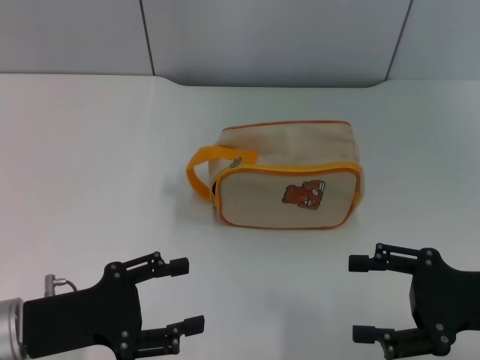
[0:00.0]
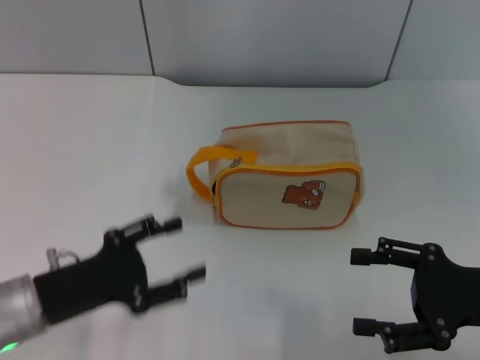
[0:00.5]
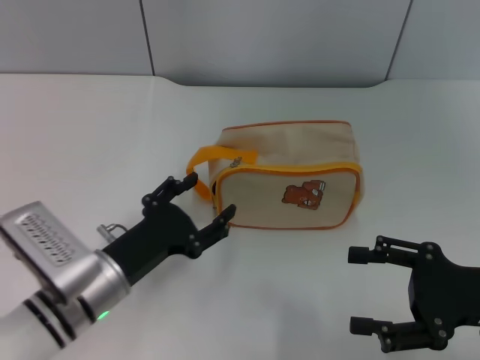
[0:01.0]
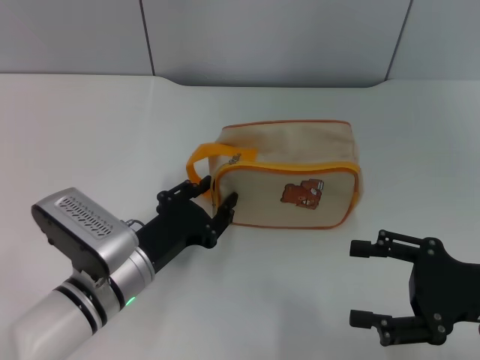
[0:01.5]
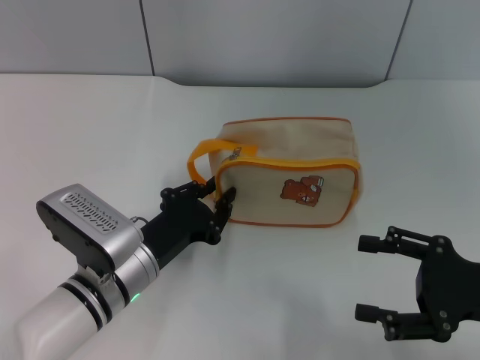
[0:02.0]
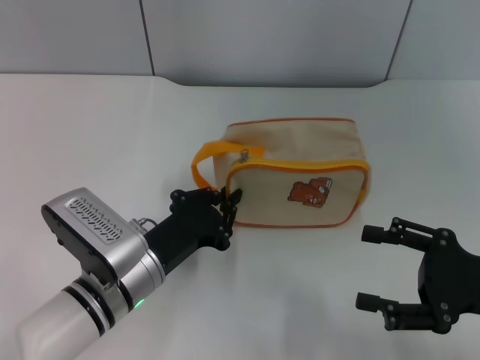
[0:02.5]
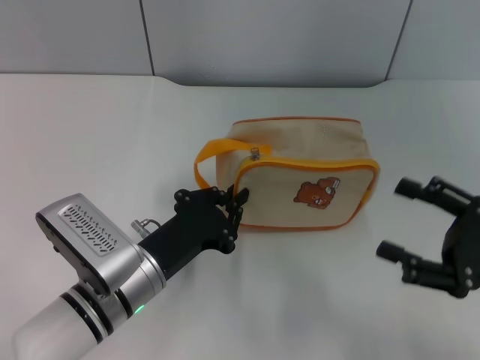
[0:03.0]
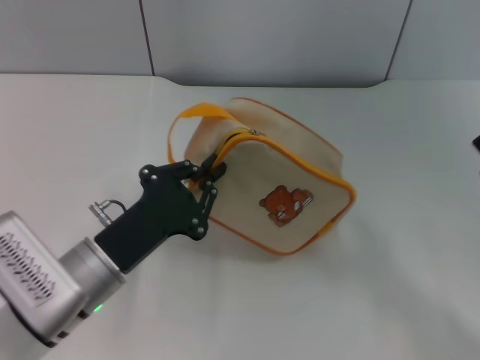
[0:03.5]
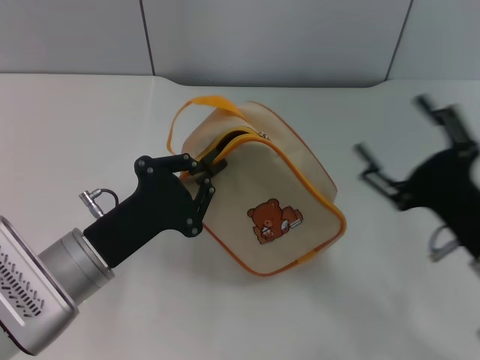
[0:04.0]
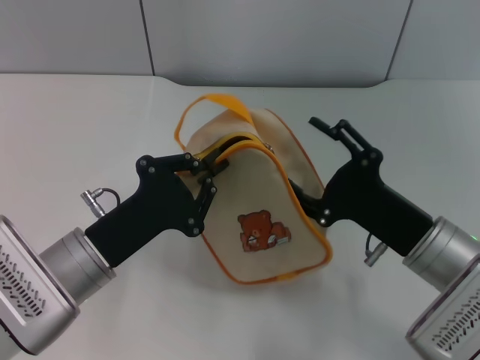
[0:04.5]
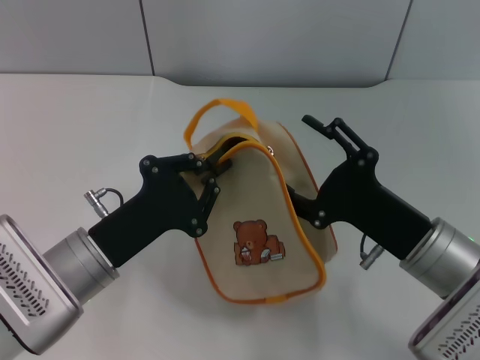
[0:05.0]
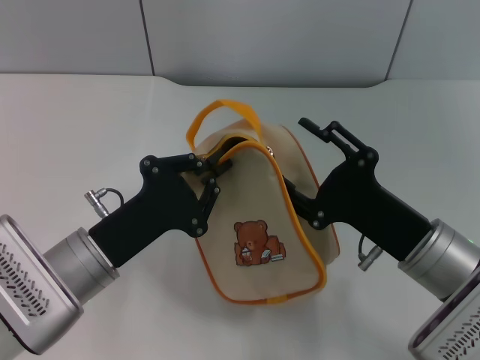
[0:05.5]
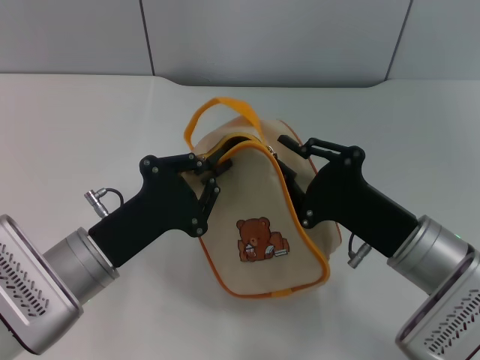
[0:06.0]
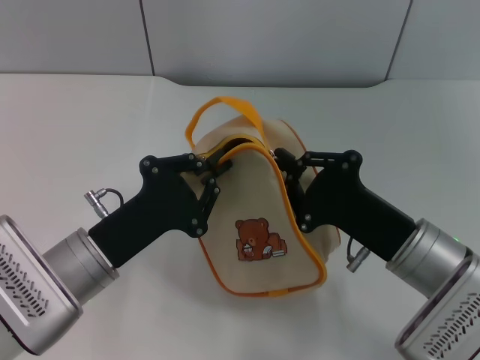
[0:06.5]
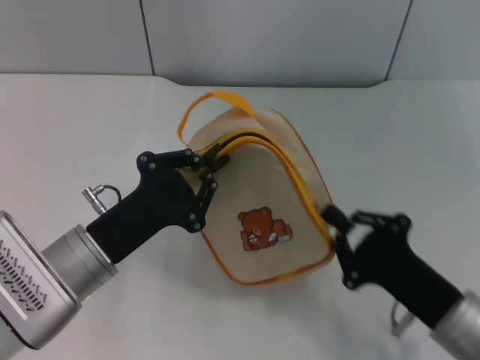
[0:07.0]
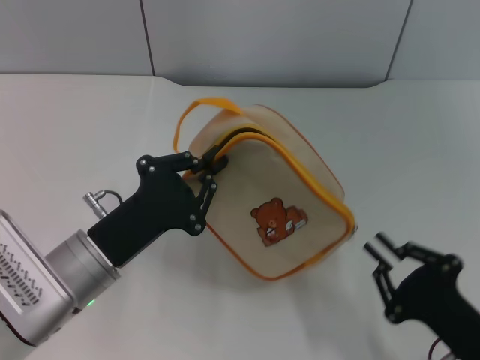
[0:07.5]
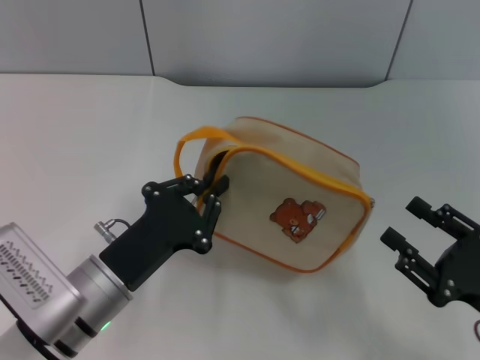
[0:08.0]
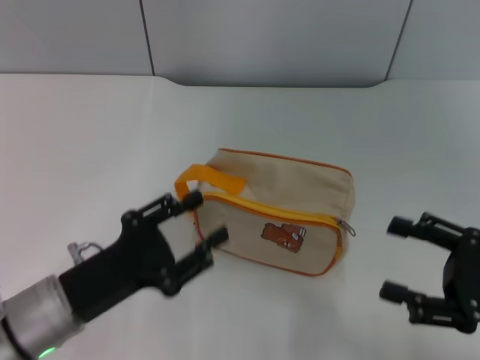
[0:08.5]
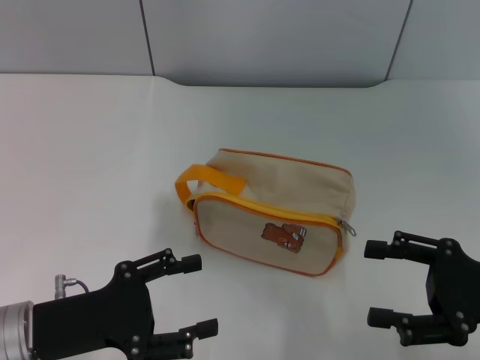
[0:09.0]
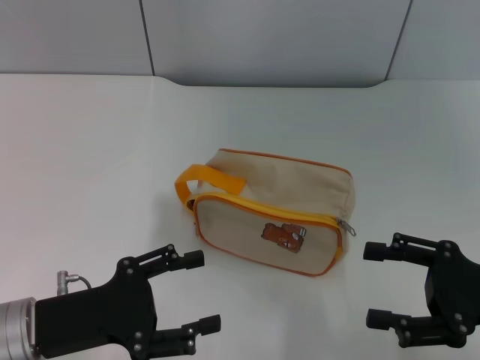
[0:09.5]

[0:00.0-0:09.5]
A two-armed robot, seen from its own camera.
Step, 0:00.0 to 0:03.5: Pick up the bag with left gripper.
Step, 0:04.0 to 0:07.5: Unzip the zipper of bag with right gripper.
Step, 0:08.0 to 0:08.5: Place the bag on the table with left gripper.
0:00.0 to 0:02.0: The left gripper is displaced to the right and forward by about 10 cm, and closes its fingers.
0:02.0 to 0:04.0: The left gripper moves approximately 5 cm, and closes its fingers. Meanwhile the right gripper is displaced to the left by roughly 5 cm.
0:04.0 to 0:05.5: The right gripper heads to the left, covering about 5 cm.
0:05.5 to 0:07.5: The right gripper heads backward and to the right, covering approximately 10 cm, and closes its fingers.
0:07.5 to 0:09.5: The left gripper goes approximately 5 cm to the left, and opens its fingers. The right gripper moves upward, forward and to the right, approximately 10 cm, and opens its fingers.

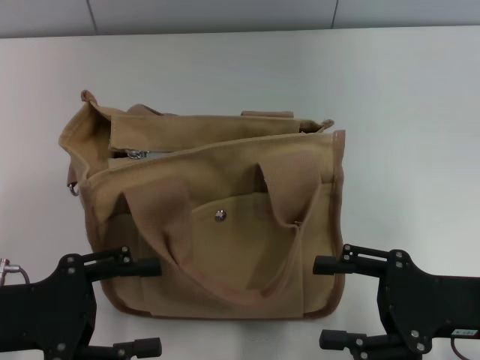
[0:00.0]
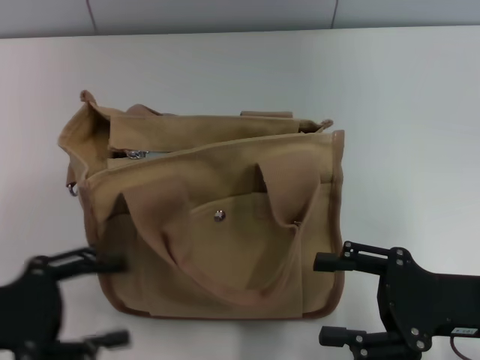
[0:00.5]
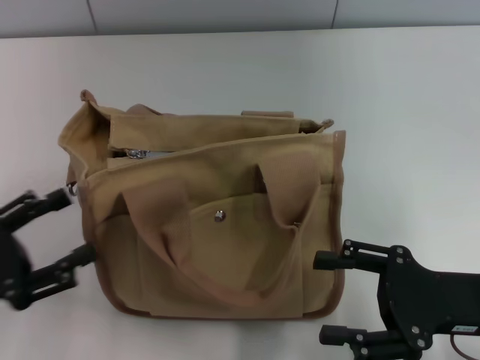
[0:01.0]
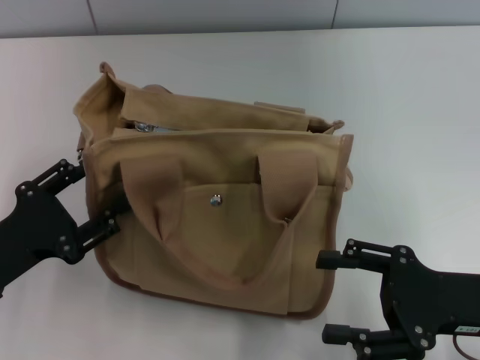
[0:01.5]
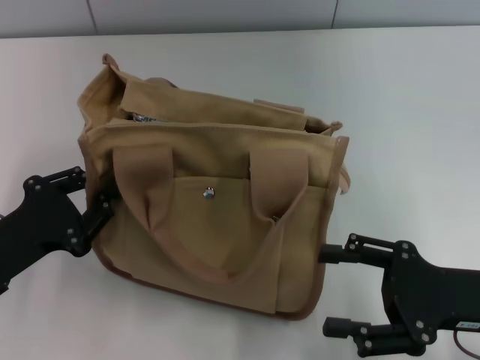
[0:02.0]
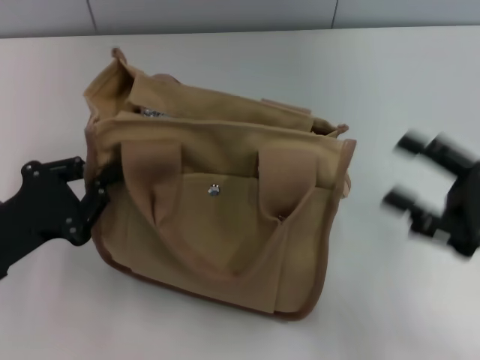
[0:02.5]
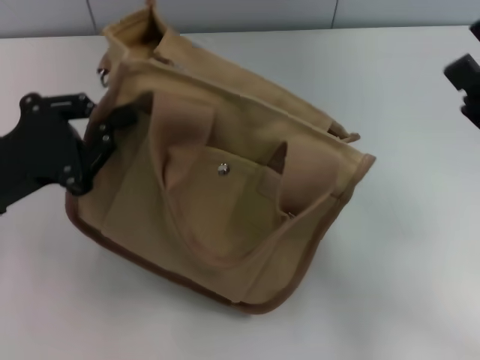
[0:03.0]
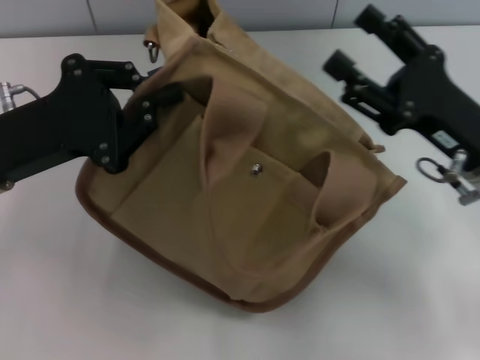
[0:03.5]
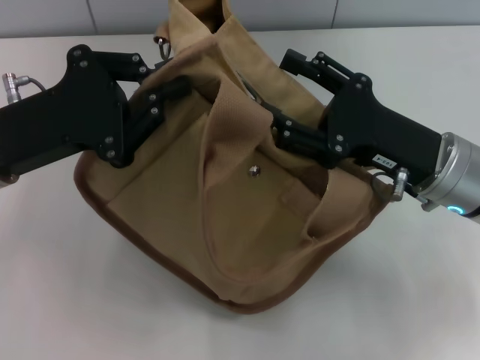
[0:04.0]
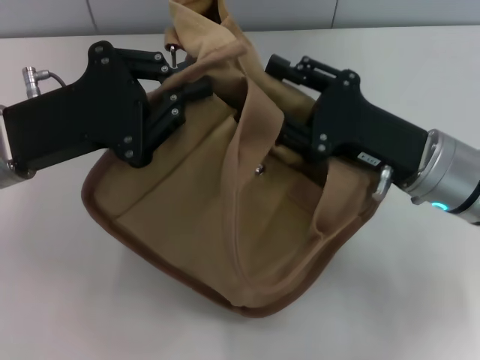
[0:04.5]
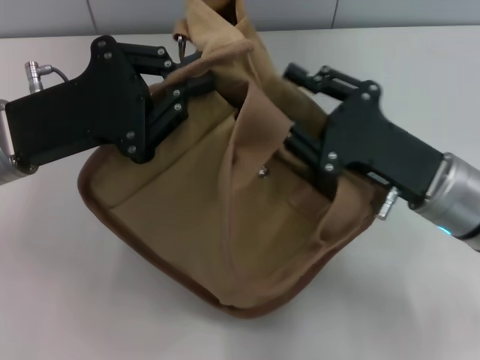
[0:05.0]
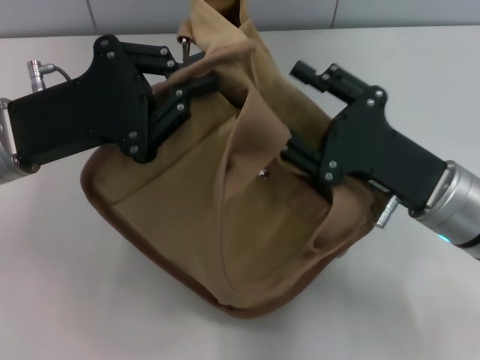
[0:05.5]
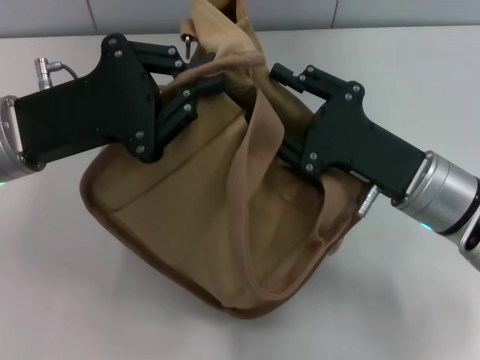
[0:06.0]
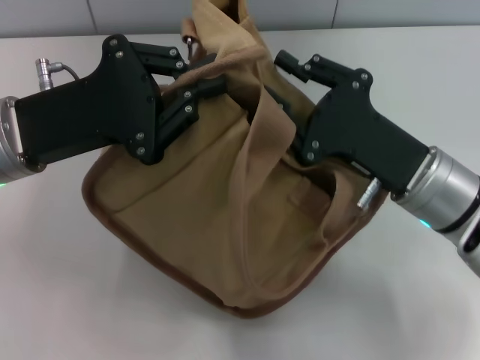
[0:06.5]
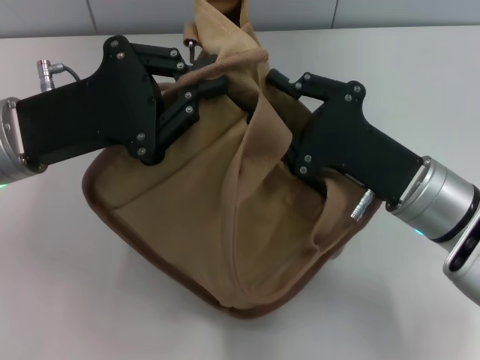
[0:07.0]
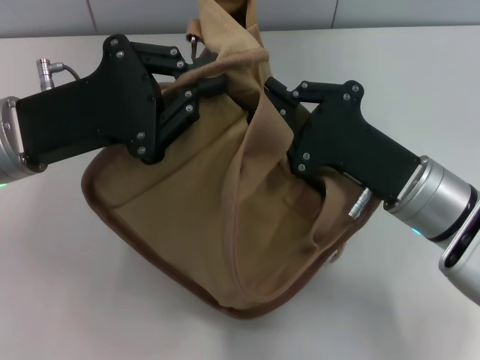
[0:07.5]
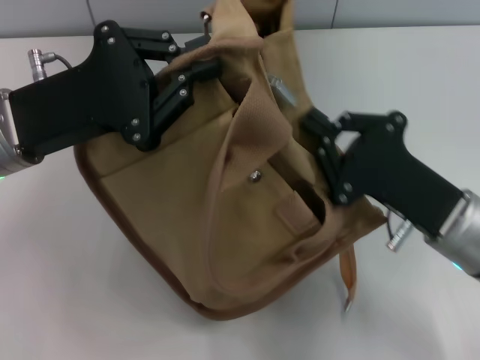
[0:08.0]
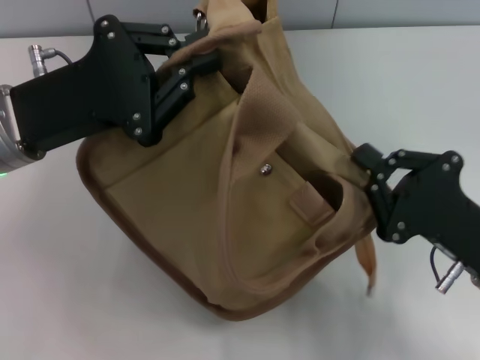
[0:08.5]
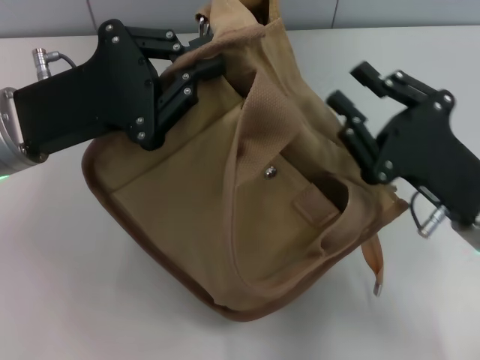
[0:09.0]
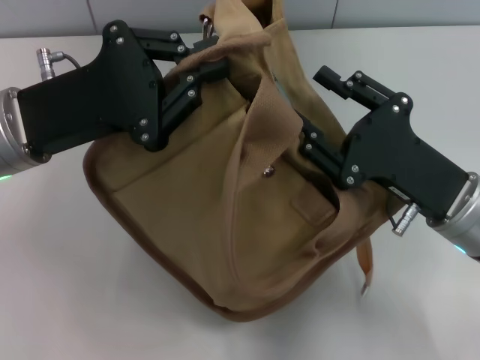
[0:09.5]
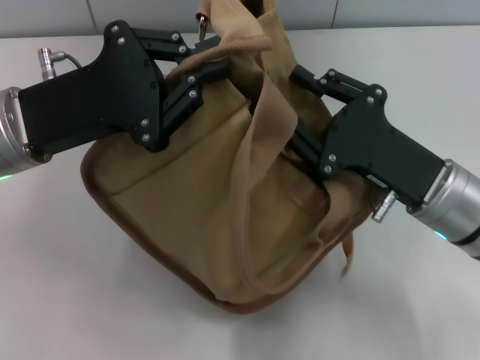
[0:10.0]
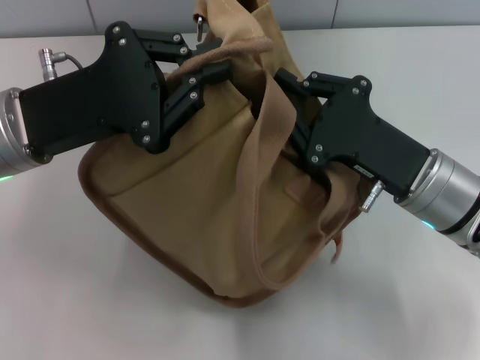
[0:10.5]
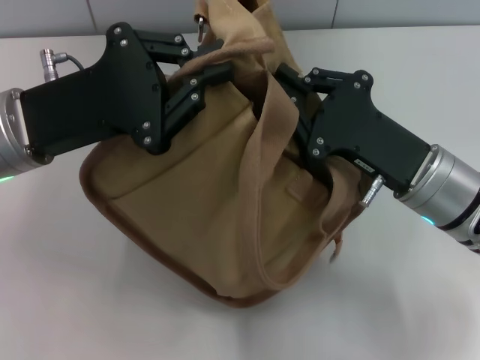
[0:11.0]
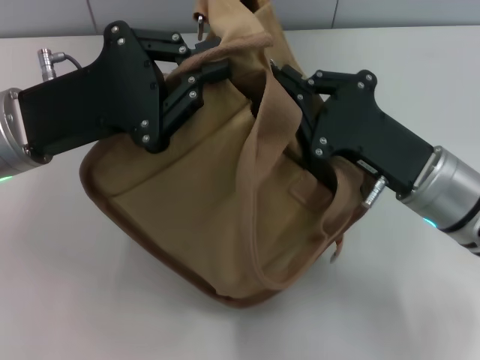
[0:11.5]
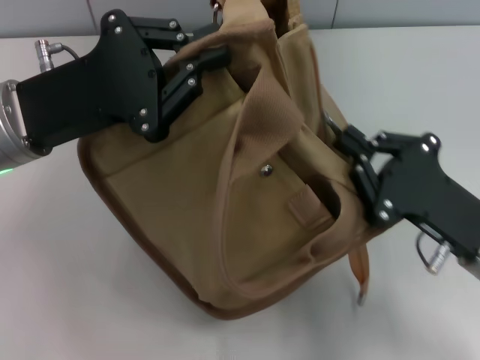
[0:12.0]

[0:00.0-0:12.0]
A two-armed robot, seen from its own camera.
0:00.0 to 0:02.0: The left gripper closes its fingers.
0:02.0 to 0:04.0: The right gripper travels forward and to the left by roughly 10 cm. Meanwhile the left gripper goes approximately 10 cm upward and forward, and closes.
0:06.0 to 0:08.0: The right gripper closes its fingers.
0:08.0 to 0:10.0: The right gripper opens.
0:10.0 to 0:12.0: The right gripper moves approximately 5 cm, and closes its fingers.

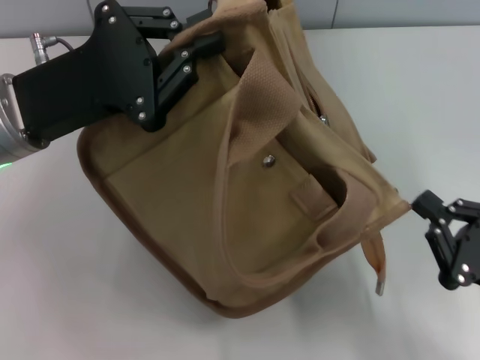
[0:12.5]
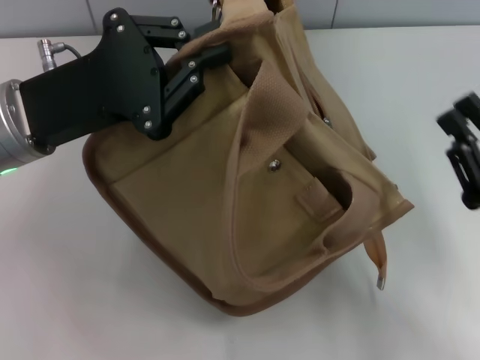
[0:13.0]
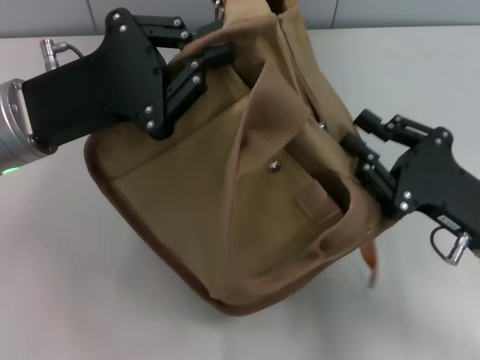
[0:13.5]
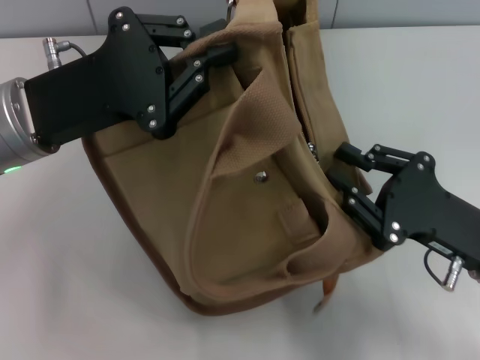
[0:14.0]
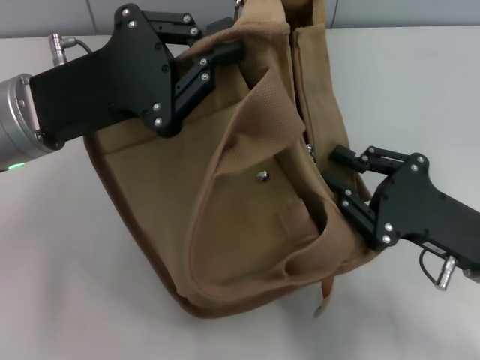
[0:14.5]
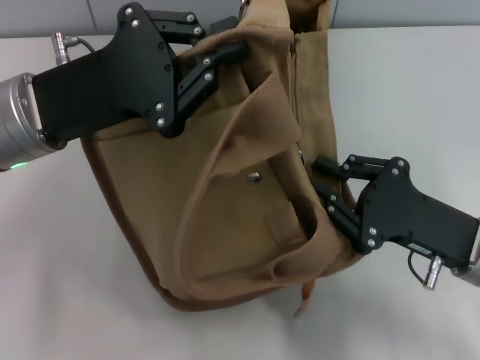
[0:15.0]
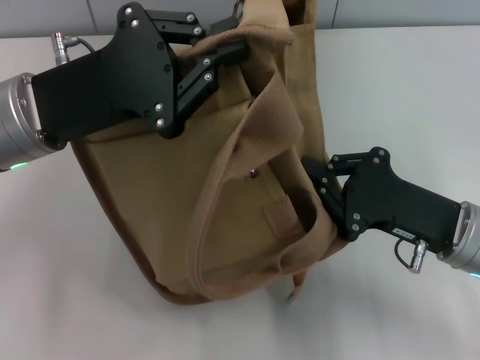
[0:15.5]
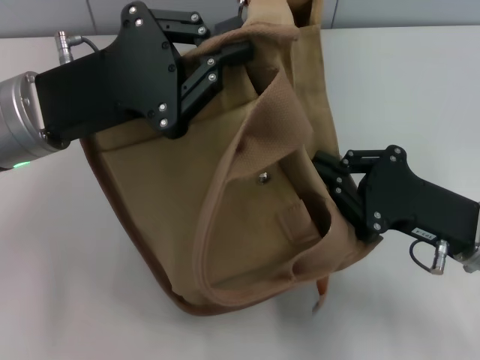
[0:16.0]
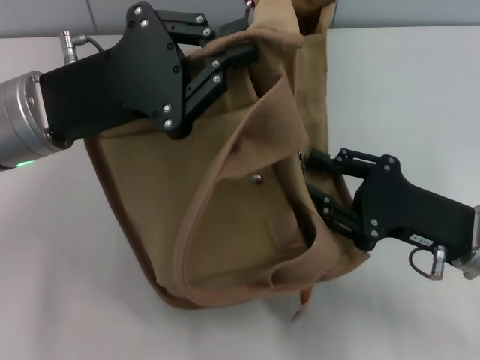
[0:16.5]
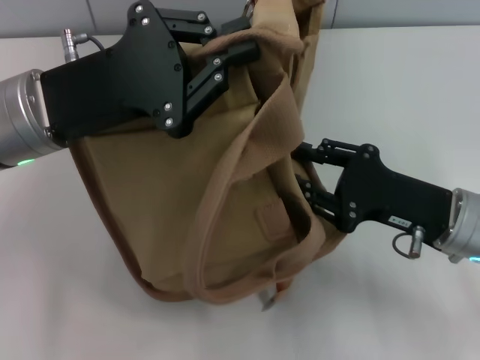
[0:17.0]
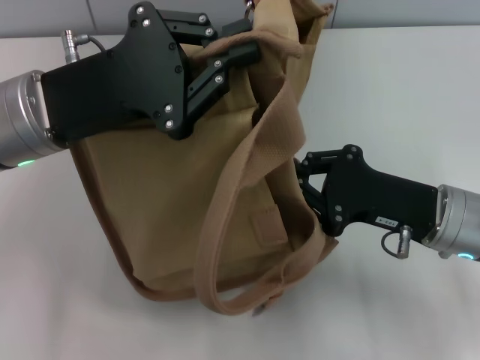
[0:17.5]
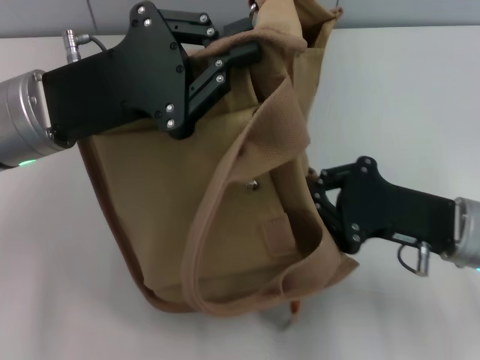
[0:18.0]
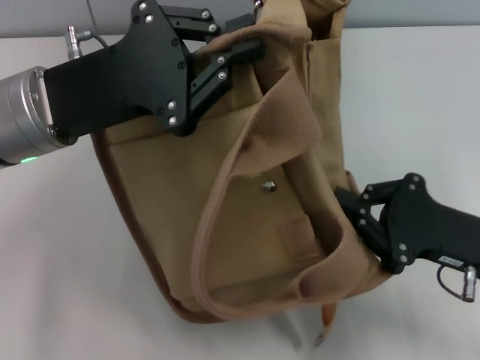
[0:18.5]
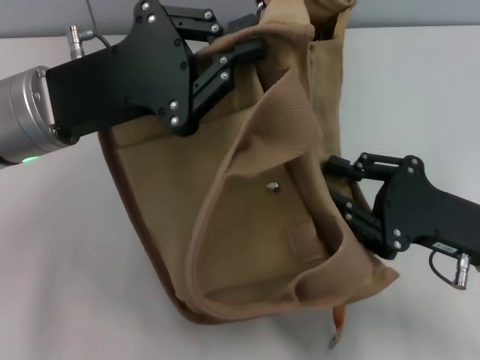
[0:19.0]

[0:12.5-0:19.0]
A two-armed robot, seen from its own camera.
0:12.5 to 0:14.5: The right gripper heads forward, covering approximately 5 cm.
0:14.5 to 0:17.0: The right gripper opens its fingers.
0:17.0 to 0:19.0: The right gripper closes.
